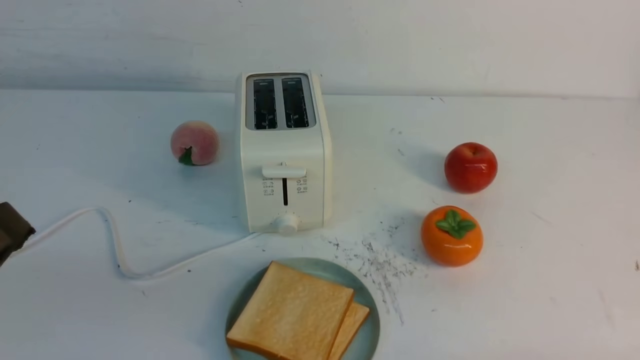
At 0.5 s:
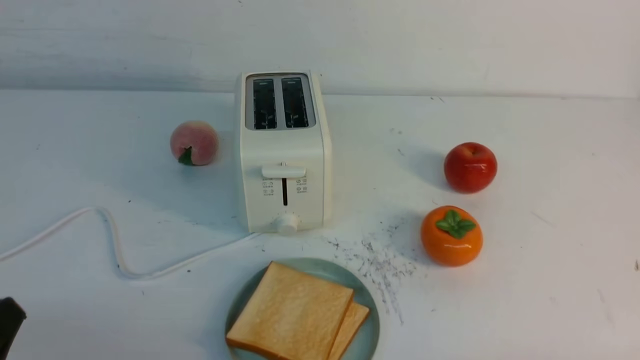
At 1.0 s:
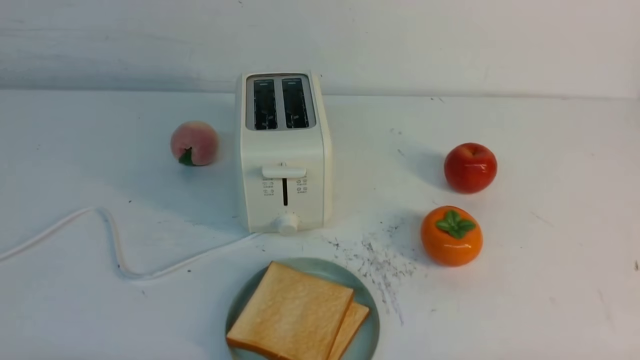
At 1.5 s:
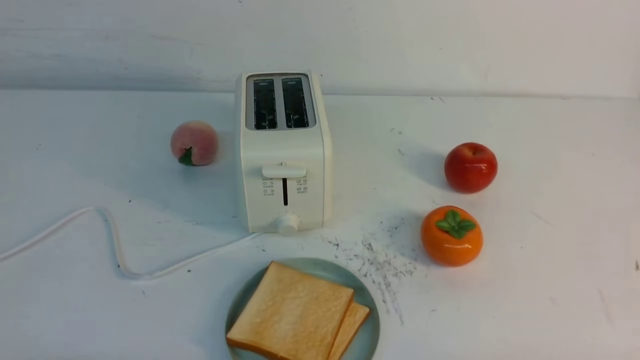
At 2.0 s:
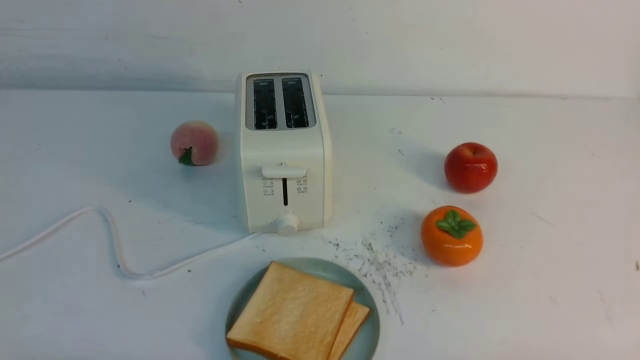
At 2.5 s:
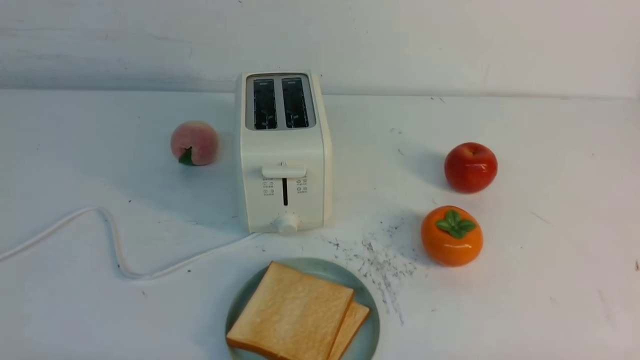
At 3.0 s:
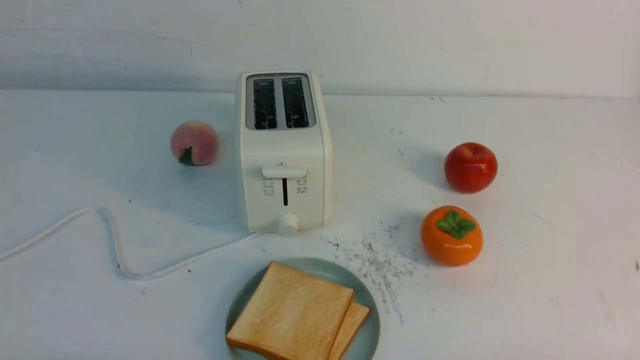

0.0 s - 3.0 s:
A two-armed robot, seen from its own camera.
Task of the whole recording: take toasted bread from bread machine on white table place on plate.
1.5 s - 3.0 s: Both grippers stay about where they are.

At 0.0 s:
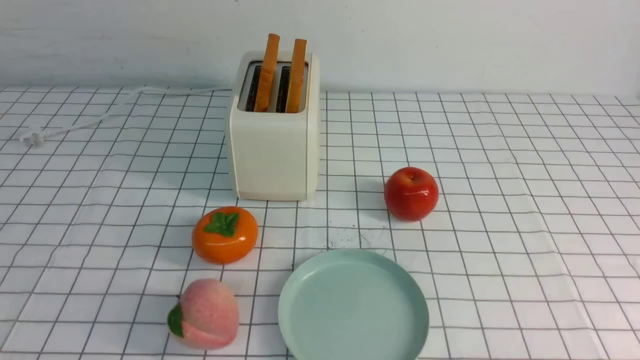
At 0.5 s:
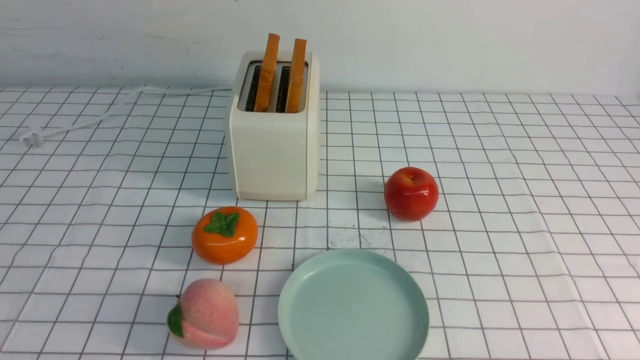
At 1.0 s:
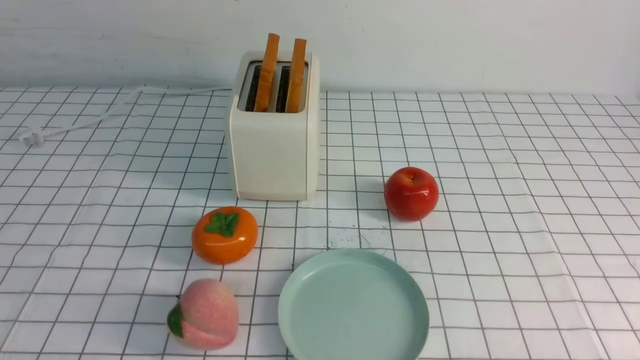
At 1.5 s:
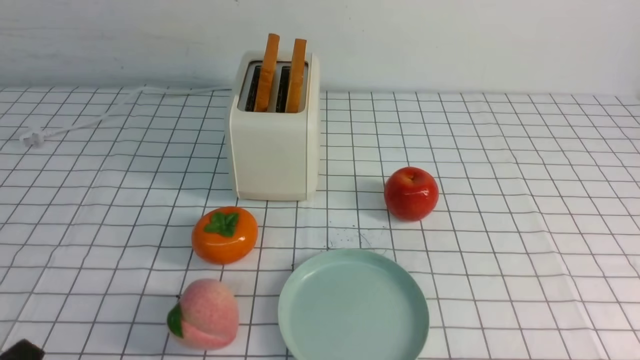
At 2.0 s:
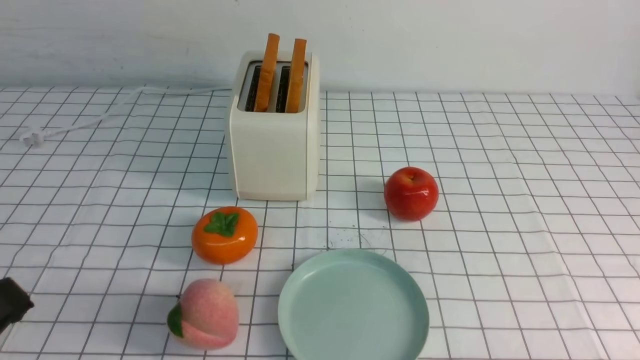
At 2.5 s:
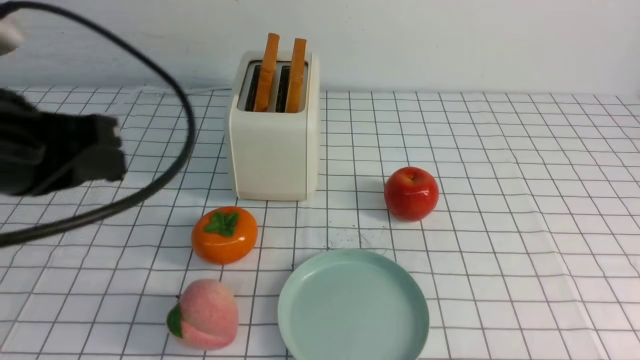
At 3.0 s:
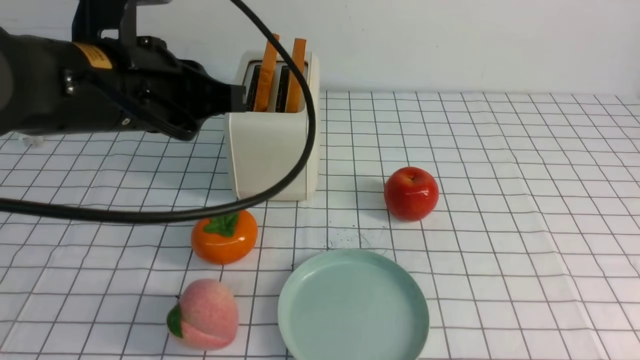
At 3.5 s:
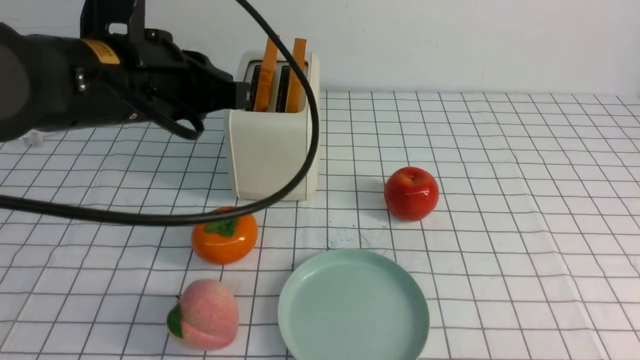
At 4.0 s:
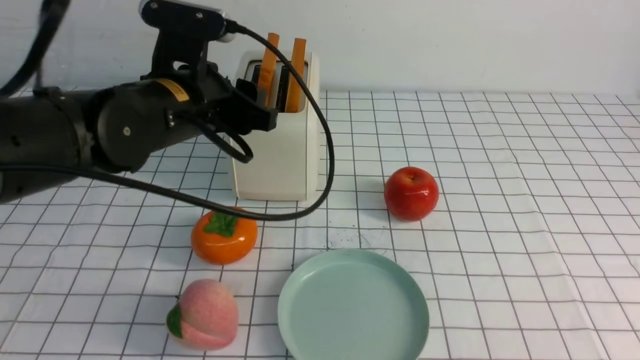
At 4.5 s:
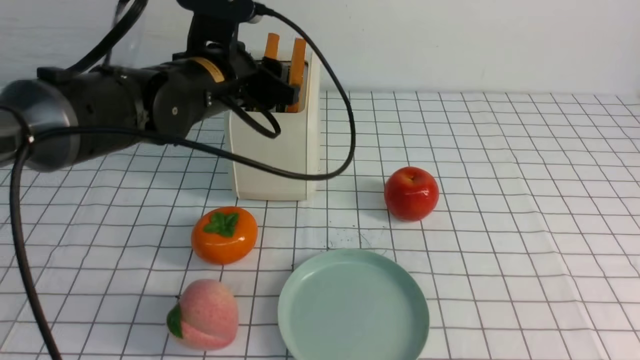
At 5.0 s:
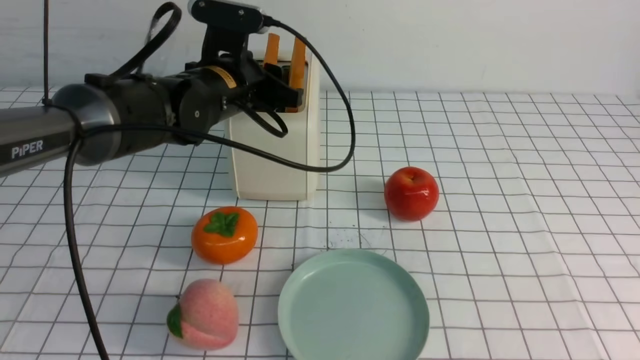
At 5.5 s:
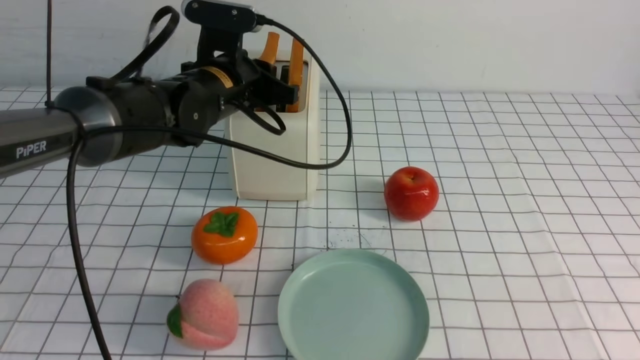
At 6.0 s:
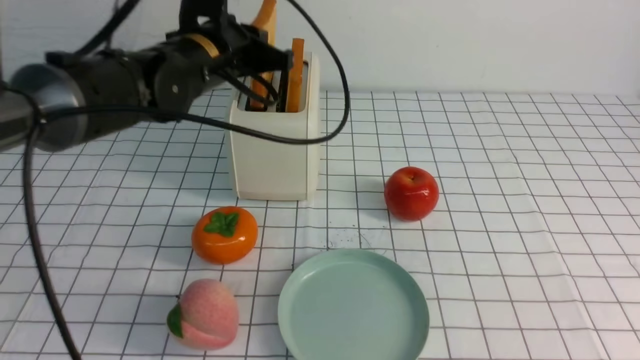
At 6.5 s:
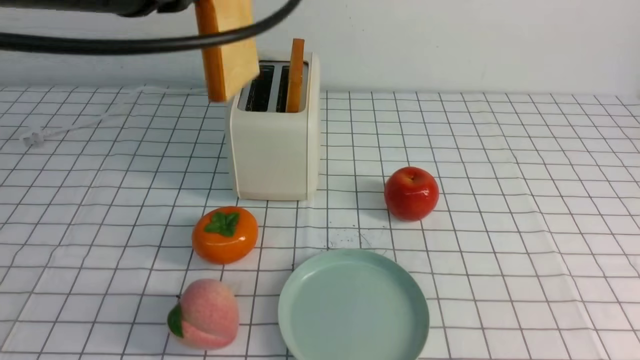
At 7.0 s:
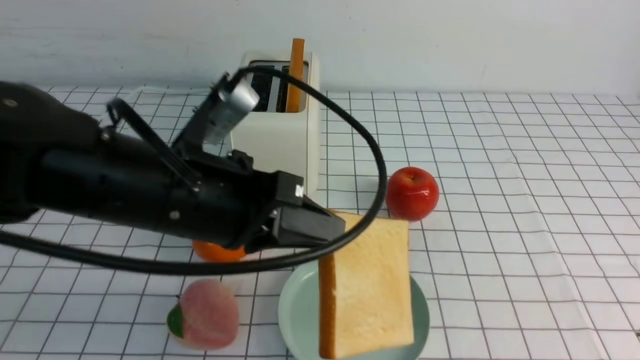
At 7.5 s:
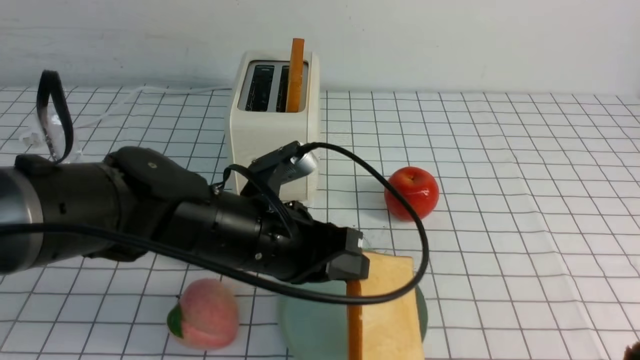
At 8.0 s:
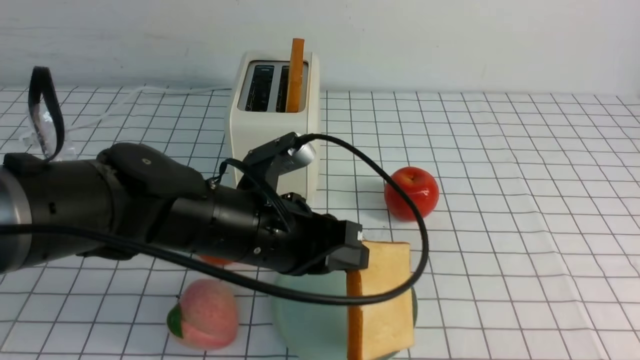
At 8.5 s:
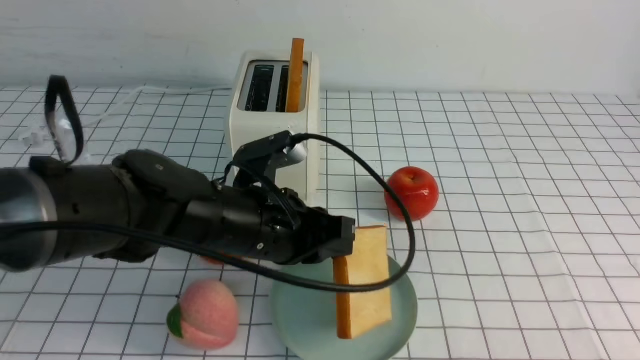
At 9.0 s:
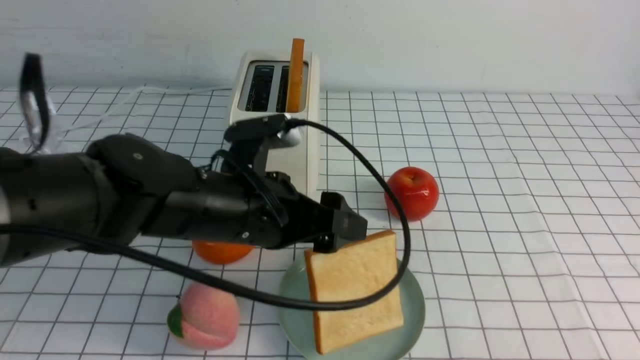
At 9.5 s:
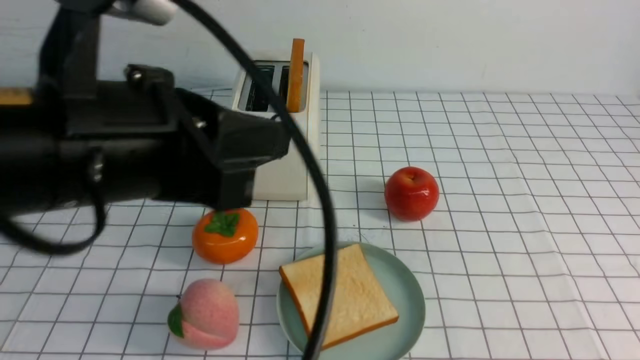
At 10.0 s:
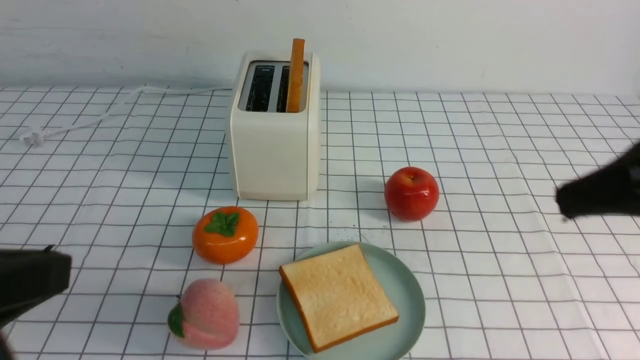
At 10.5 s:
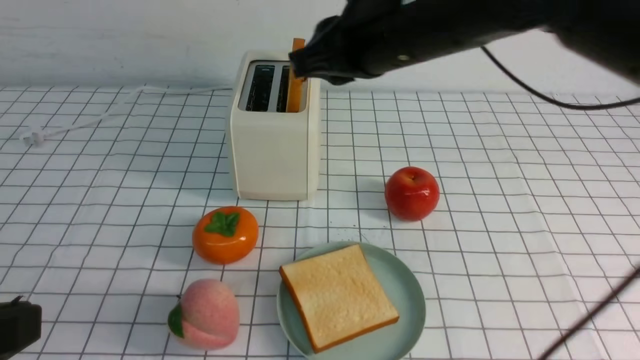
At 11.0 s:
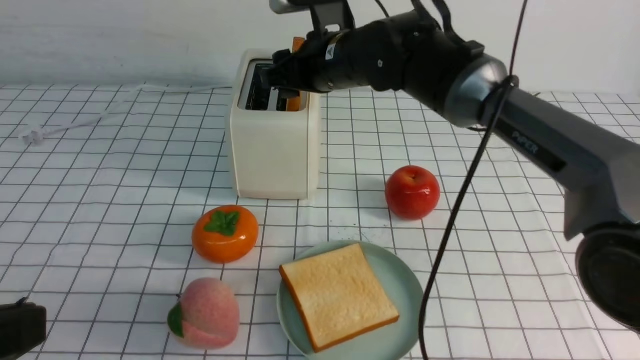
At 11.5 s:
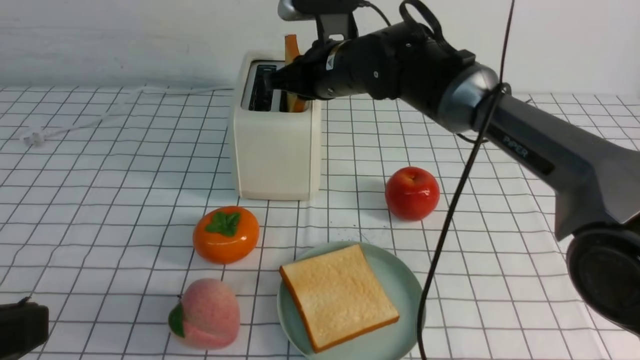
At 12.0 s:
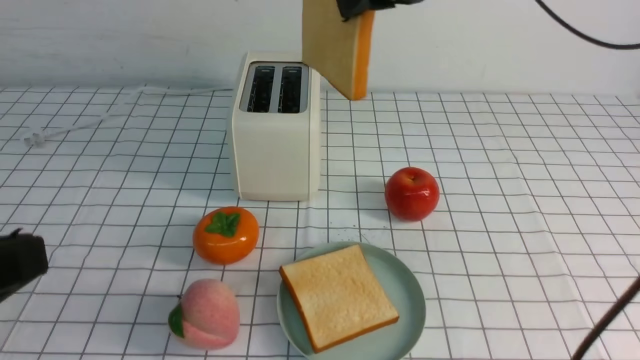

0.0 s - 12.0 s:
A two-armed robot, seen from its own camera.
Task of the whole recording: take toasted bread from bread machine on white checkered table place on plate.
Step, 0.0 s - 6.0 s: use the left arm to take out a slice of bread.
Step, 6.5 s - 9.0 s: use the left arm to put a slice of bread into the empty plate.
Step, 9.5 s - 11.5 s: use the right arm to take out a slice of bread.
2.0 s - 4.0 s: The right gripper goes roughly 10 cm upward. The left gripper travels forward and to the right by roughly 30 cm, and opens up.
4.0 s - 6.0 s: The left gripper moves forward, some 5 cm, and closes its fingers.
6.0 s - 8.0 s: The left gripper travels backward and downward by roughly 15 cm.
8.0 s - 10.0 s: The right gripper moves forward and upward, approximately 15 cm; the left gripper goes roughly 25 cm backward, to the left and upward, and opens, then closes again.
10.0 s - 12.0 s: The right gripper travels forward and to the left by roughly 20 cm, and opens, then closes again.

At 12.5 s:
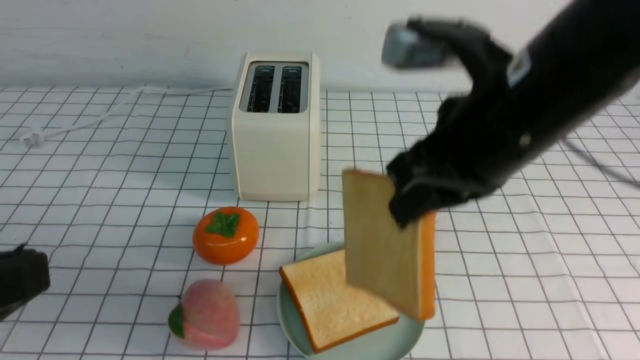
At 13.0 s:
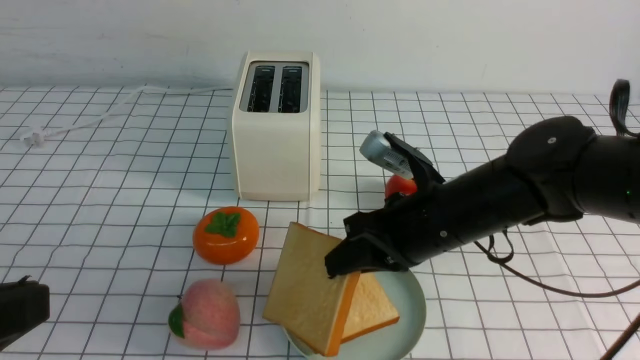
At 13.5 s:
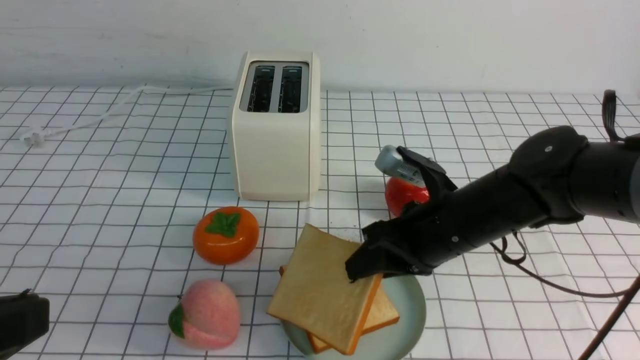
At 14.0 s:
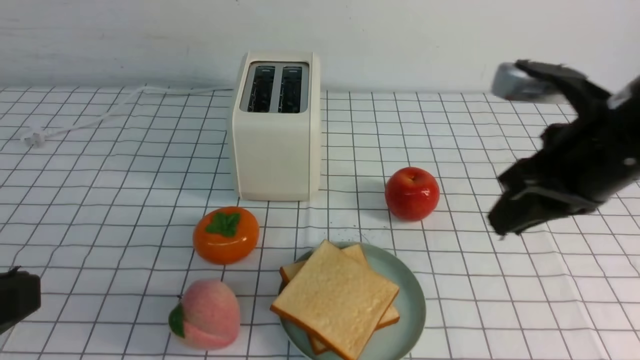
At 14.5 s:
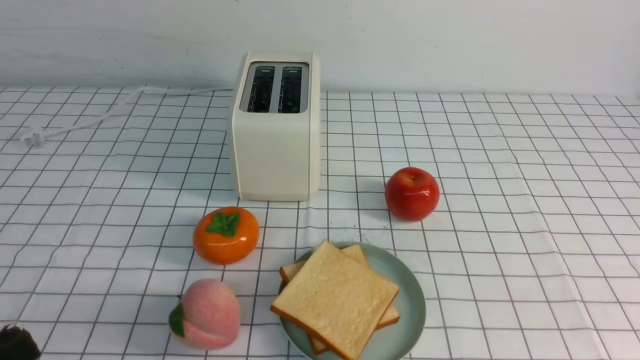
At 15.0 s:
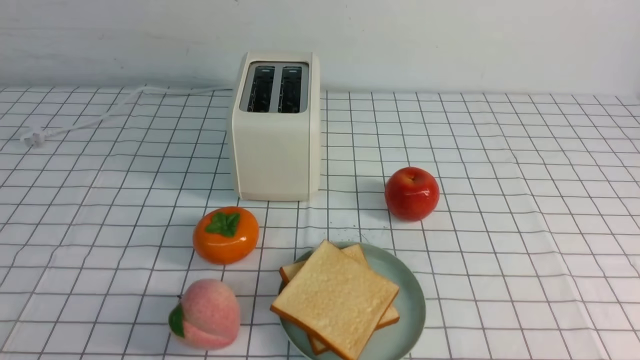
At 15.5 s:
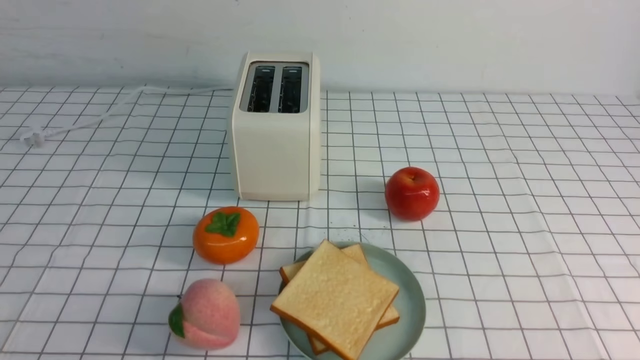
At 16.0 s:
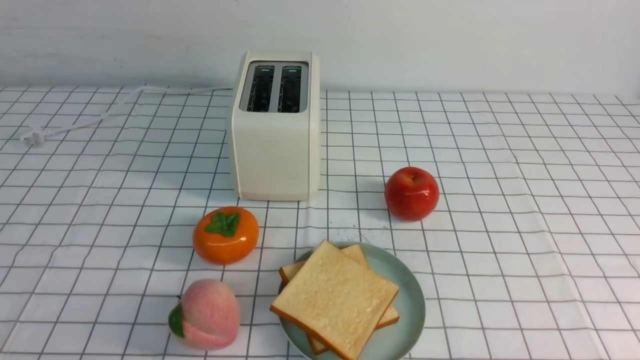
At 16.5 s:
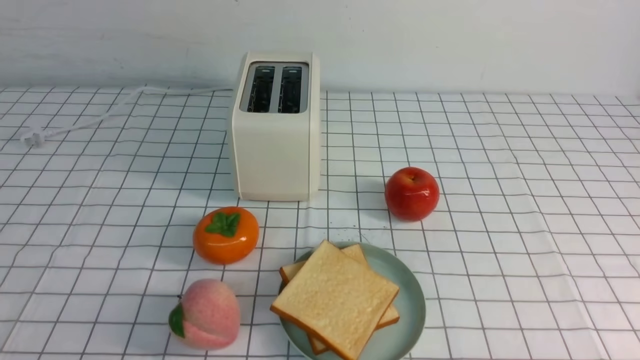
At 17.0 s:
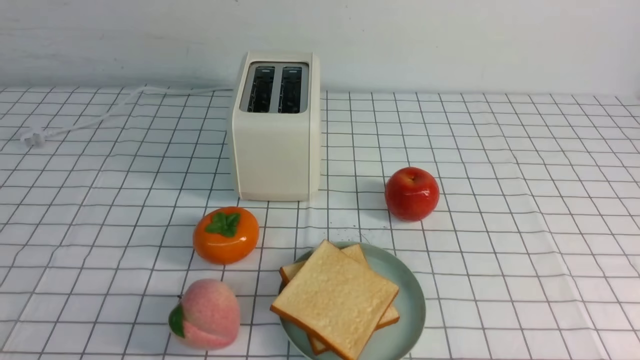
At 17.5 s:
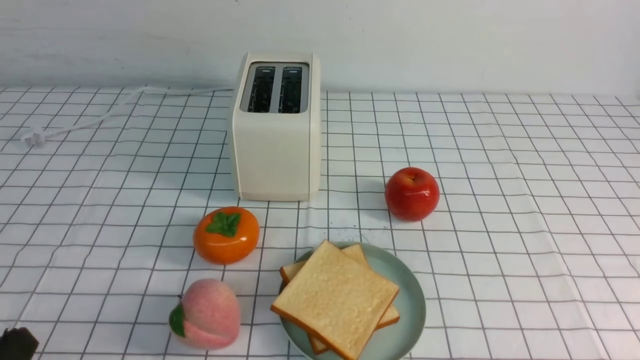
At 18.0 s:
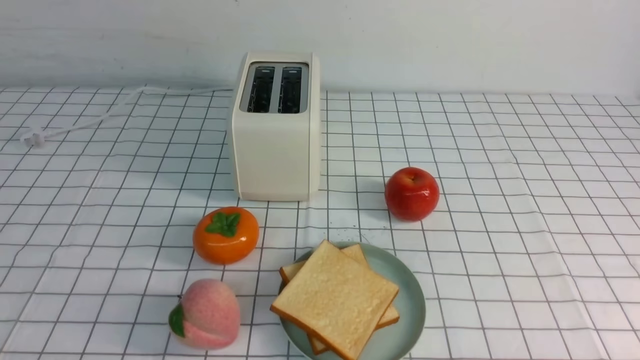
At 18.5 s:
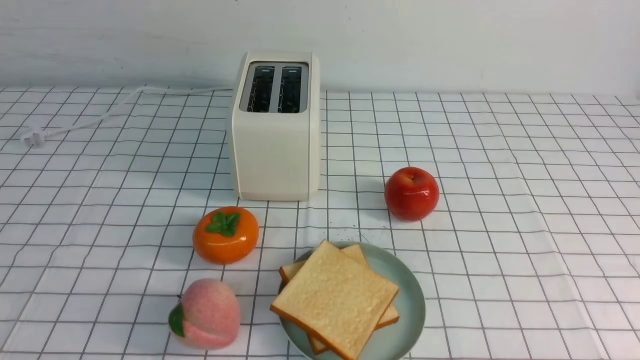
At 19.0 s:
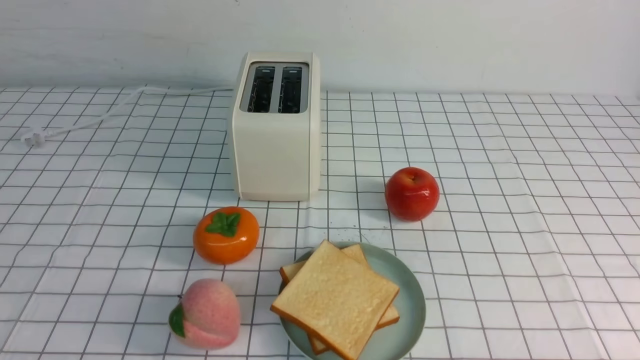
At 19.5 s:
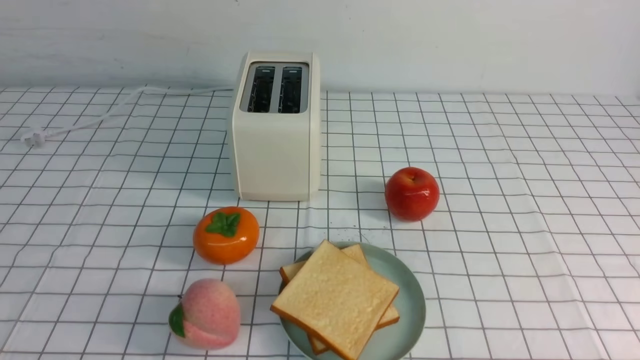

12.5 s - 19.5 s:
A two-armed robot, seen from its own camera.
Task of the whole recording: take toasted bread from bread machine on white checkered table place on plate.
Step, 12.5 s - 13.5 s: use the right arm to put a slice of bread into the plate.
12.5 s - 14.5 s: The right gripper travels backward and to the right by roughly 25 cm, and opens, then closes again; the left gripper travels downward by approximately 10 cm.
